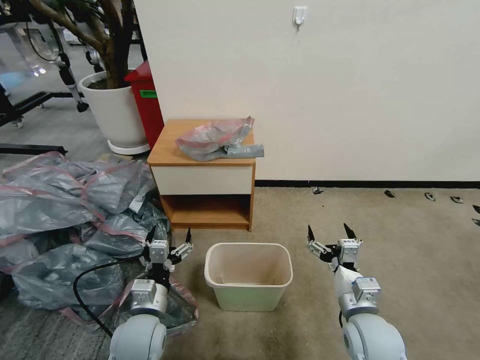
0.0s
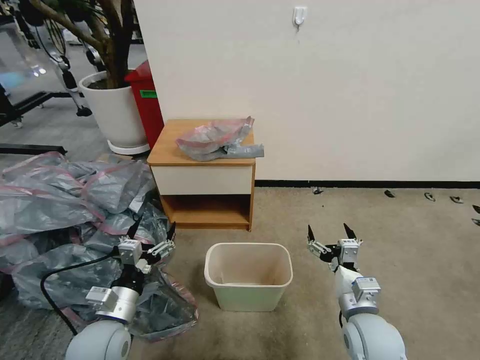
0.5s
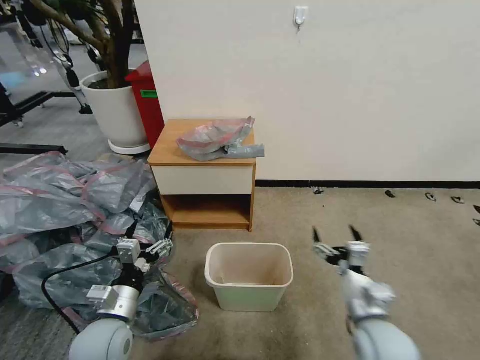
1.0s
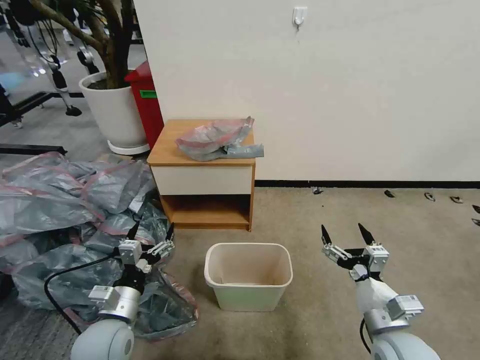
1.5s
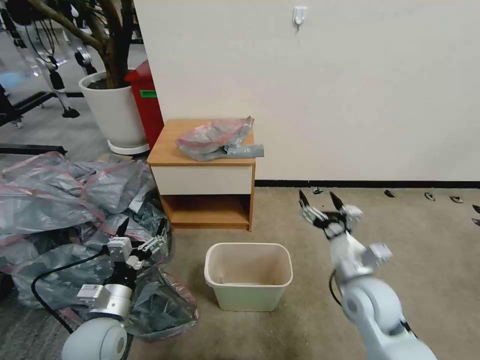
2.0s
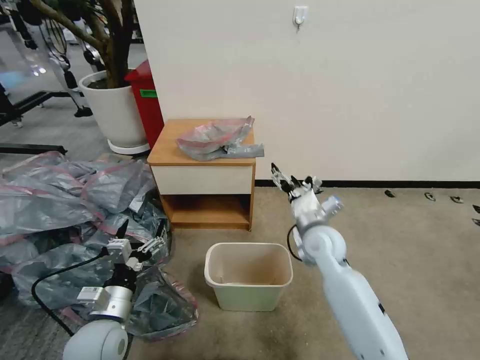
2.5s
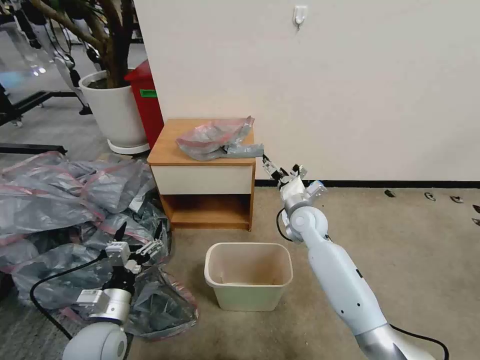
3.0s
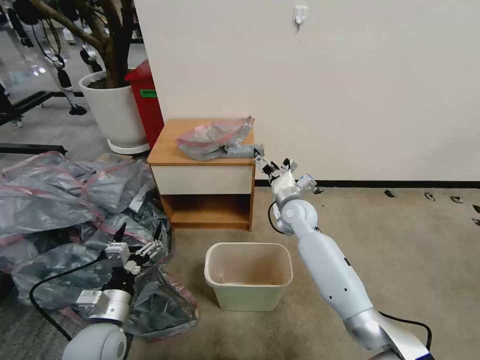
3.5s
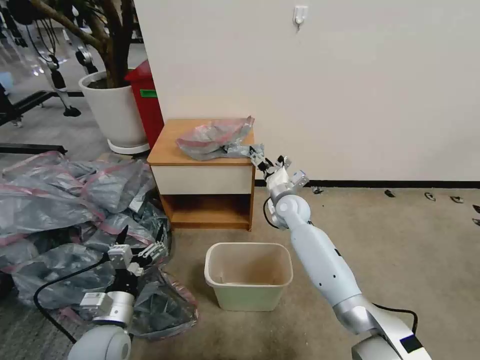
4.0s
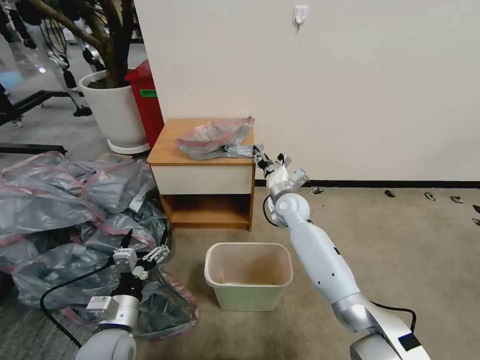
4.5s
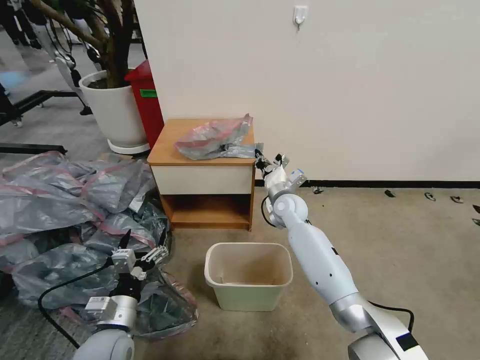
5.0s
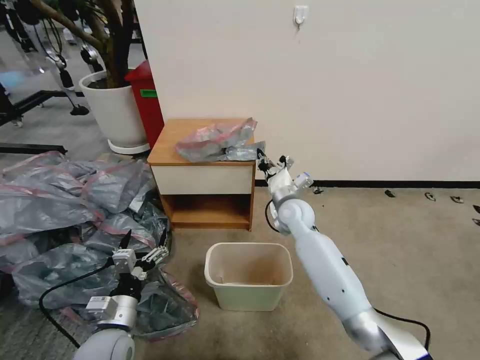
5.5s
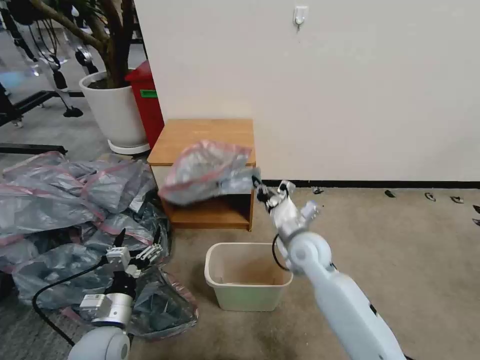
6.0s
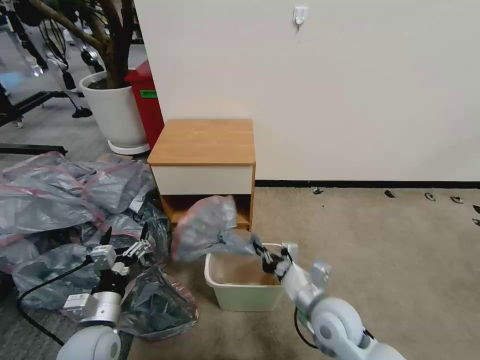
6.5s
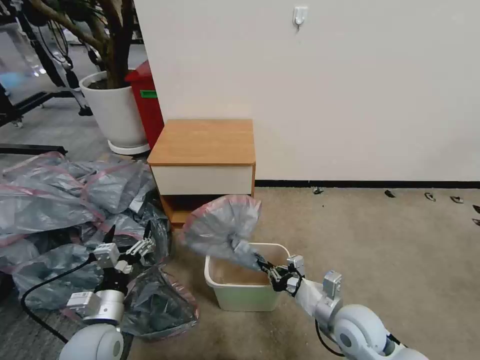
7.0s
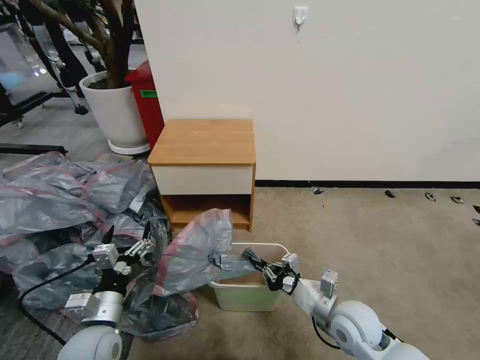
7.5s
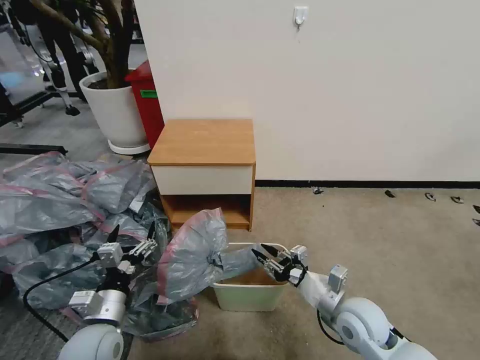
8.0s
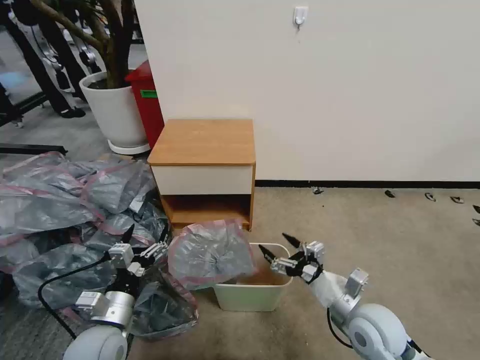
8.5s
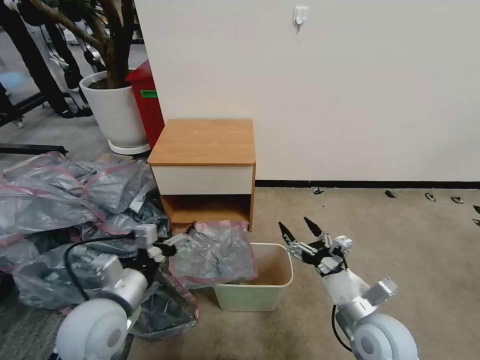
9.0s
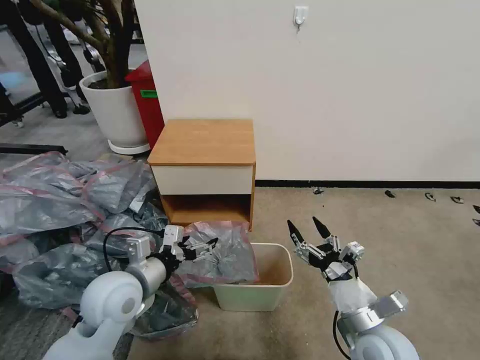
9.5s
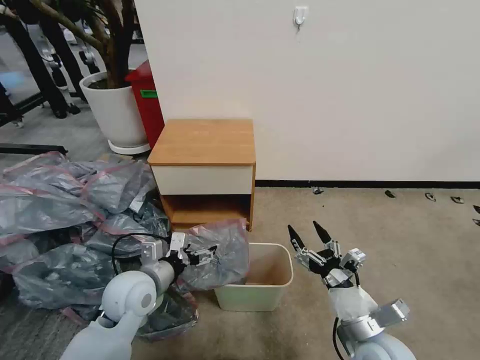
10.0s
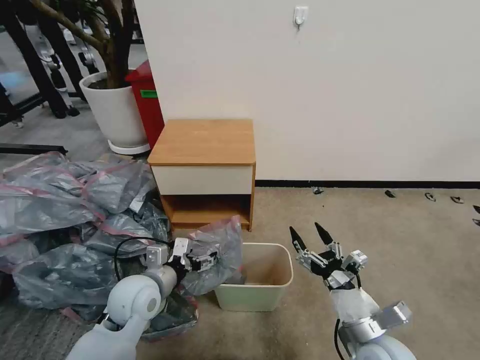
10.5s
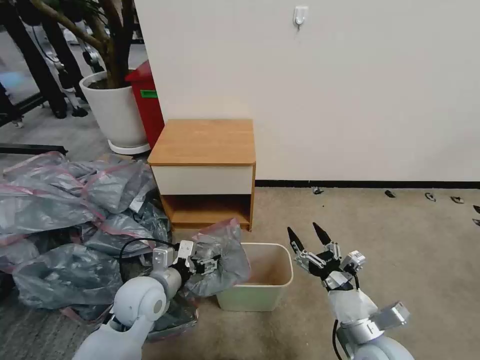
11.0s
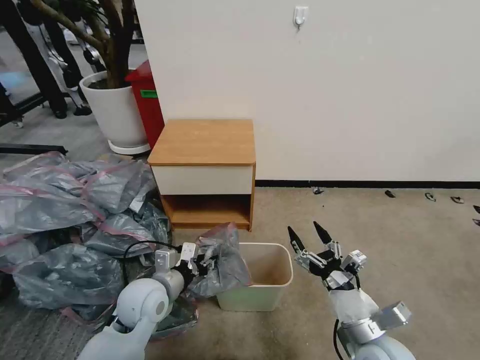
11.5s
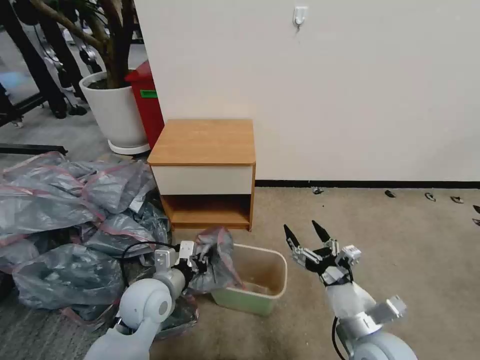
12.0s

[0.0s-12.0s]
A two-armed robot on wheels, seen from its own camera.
Task of the whole recording: Pick up the garbage bag from the table and place it over the trash can.
2.0s to 4.0s: The right gripper moves forward and to the left, about 25 cm.
4.0s to 6.0s: The right gripper goes approximately 15 cm backward, and closes.
6.0s to 8.0s: The right gripper is displaced backward, to the right and downward by about 15 cm, and opens up.
8.0s to 10.0s: The left gripper travels forward and to the right by some 10 cm. Meanwhile the right gripper is displaced backward by roughly 5 cm, and opens.
10.0s to 12.0s: The left gripper closes up.

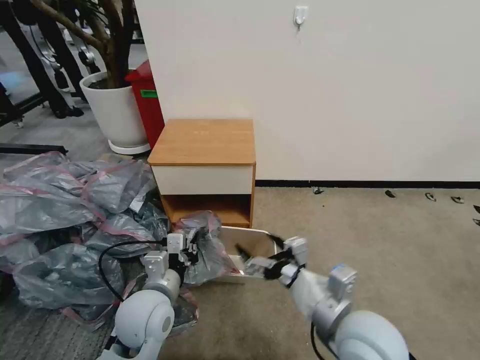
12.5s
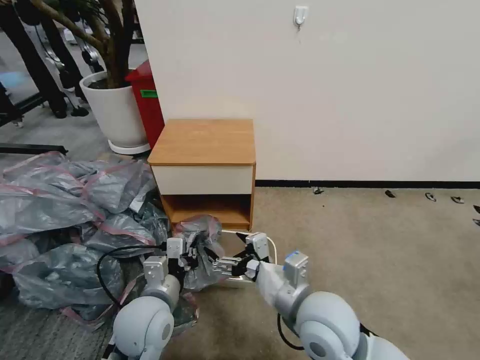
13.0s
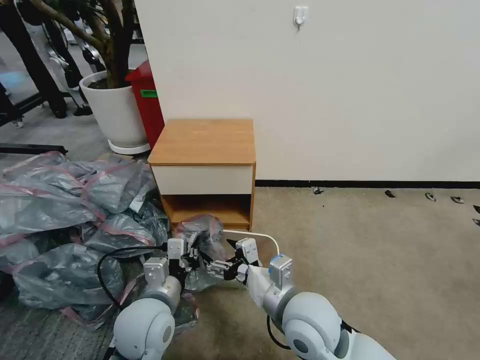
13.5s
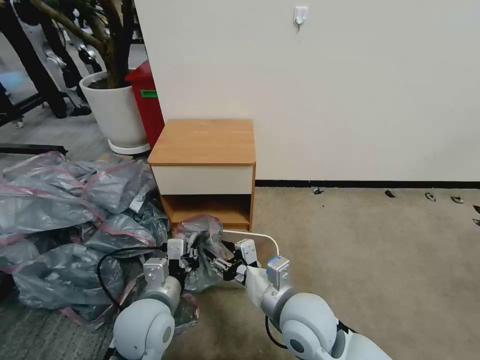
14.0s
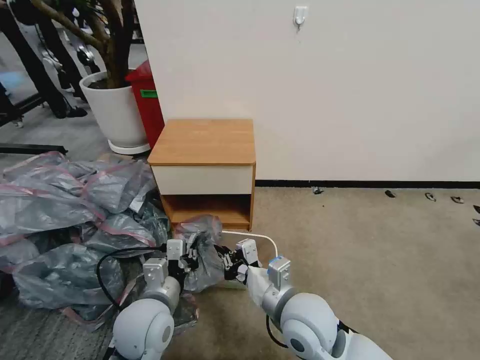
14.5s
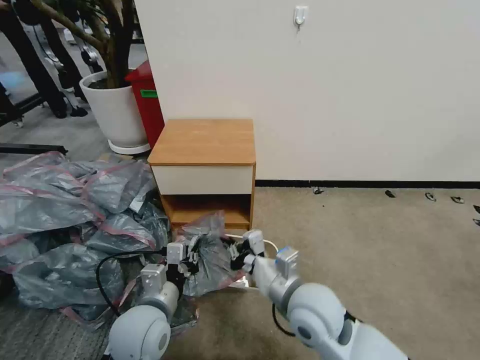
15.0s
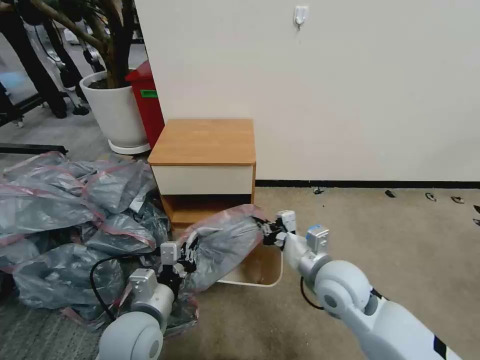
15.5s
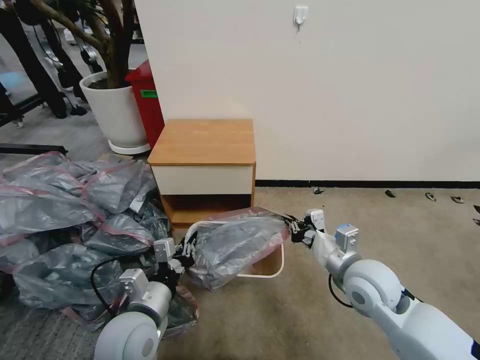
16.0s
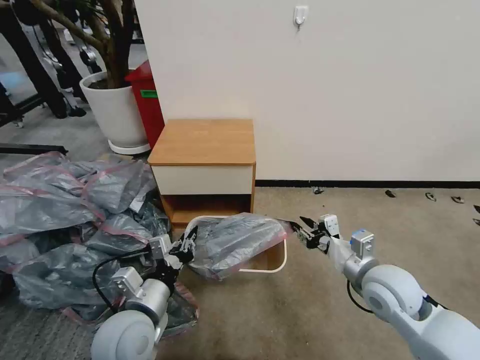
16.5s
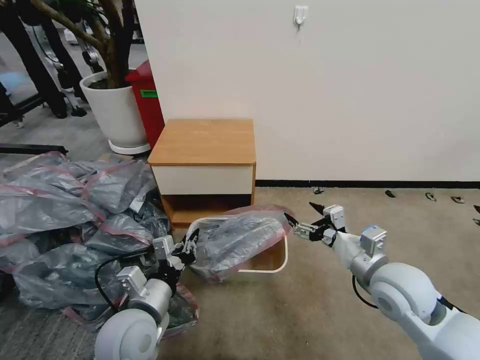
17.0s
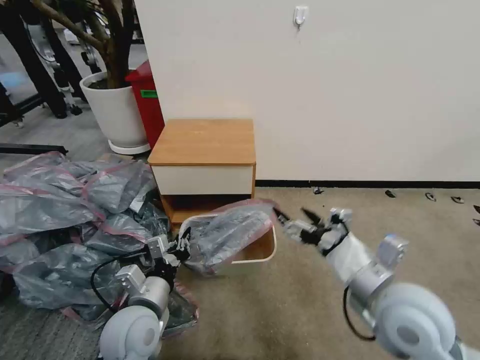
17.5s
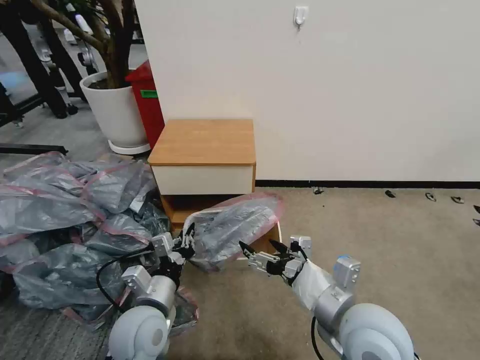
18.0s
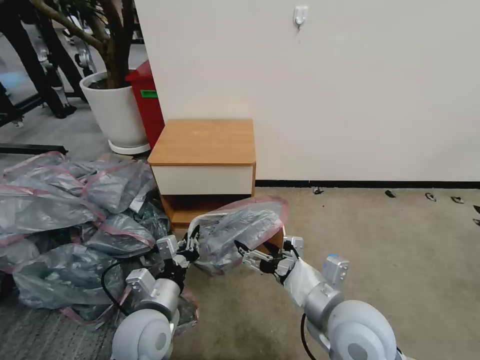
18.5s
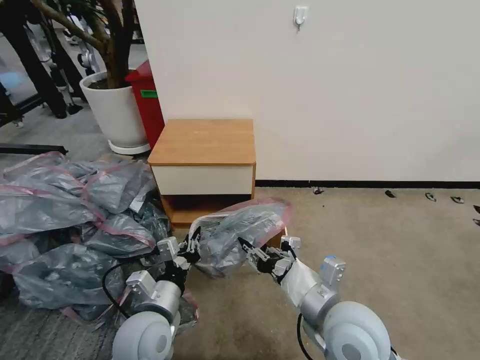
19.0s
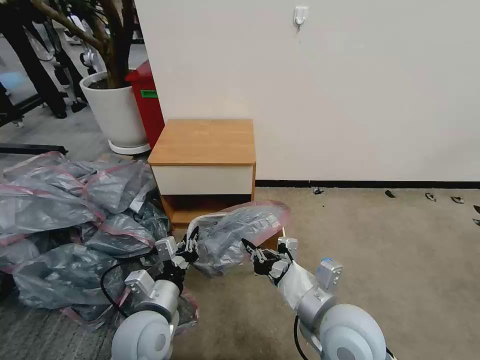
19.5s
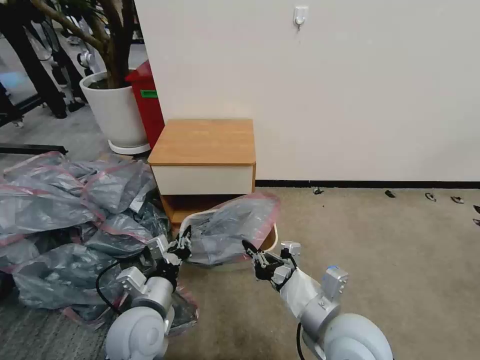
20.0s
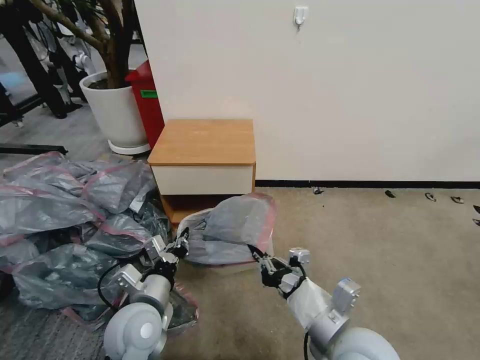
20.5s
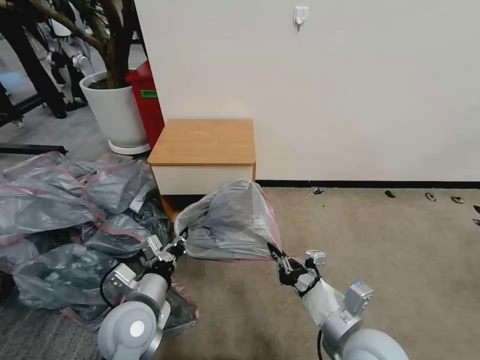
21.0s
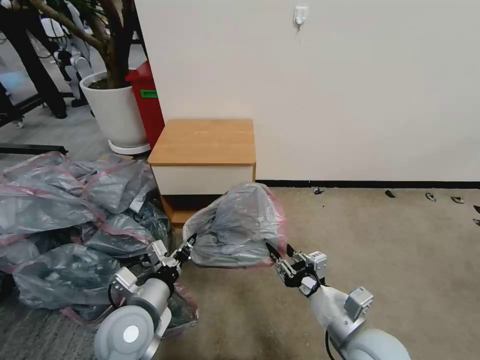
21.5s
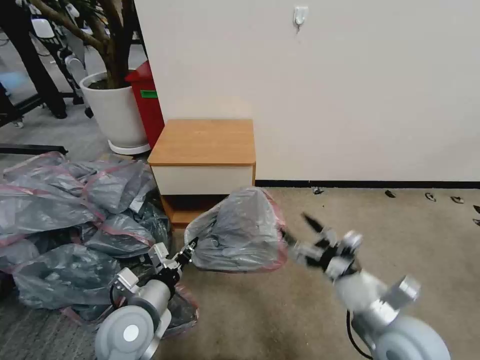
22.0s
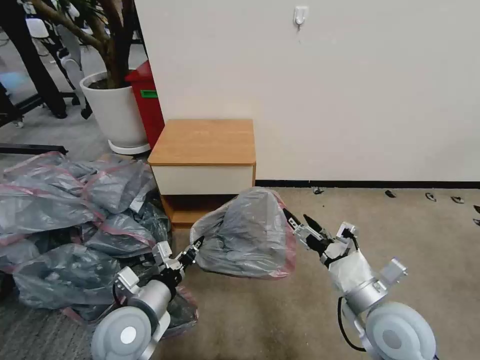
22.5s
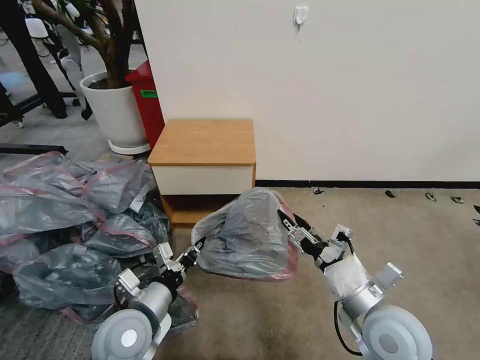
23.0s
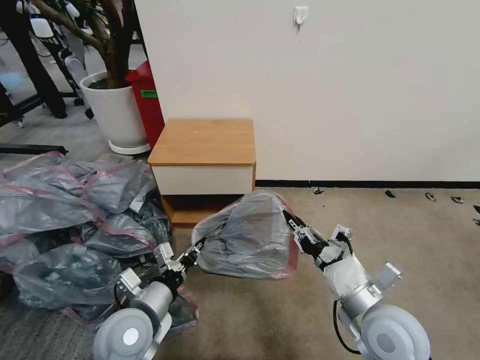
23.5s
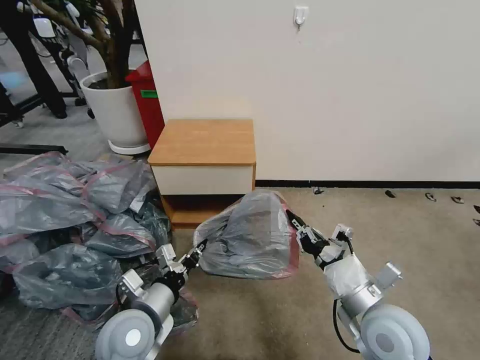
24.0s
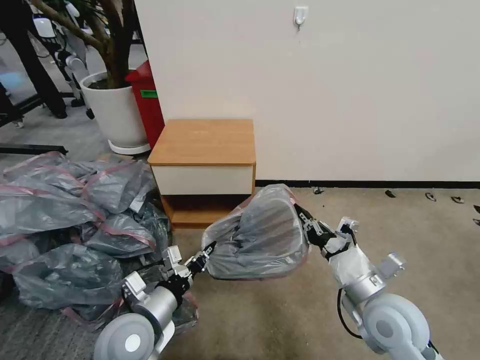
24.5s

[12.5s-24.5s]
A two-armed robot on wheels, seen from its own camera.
Task of the whole recording: Pick up the garbage bag from the table and place it over the trash can.
12.5s to 14.5s: The right gripper travels to the left by about 10 cm, and closes up.
14.5s to 16.5s: The right gripper travels to the right by roughly 20 cm.
16.5s to 18.5s: The right gripper heads to the left and backward, covering some 15 cm, and opens its fingers.
18.5s to 20.5s: The right gripper closes.
20.5s to 22.5s: The right gripper heads to the right, covering some 10 cm, and opens up.
22.5s to 24.5s: The right gripper closes up.

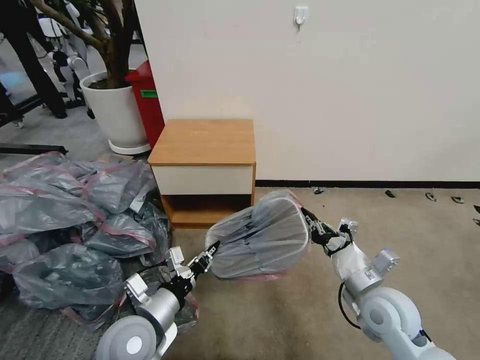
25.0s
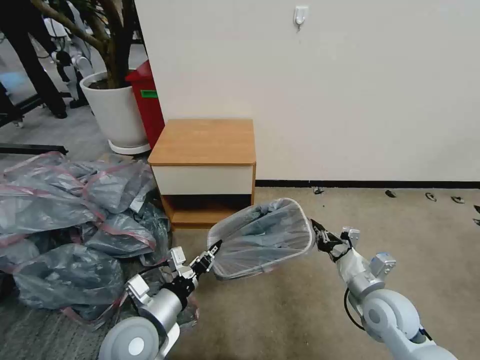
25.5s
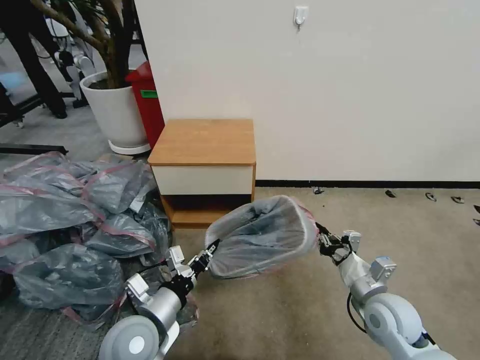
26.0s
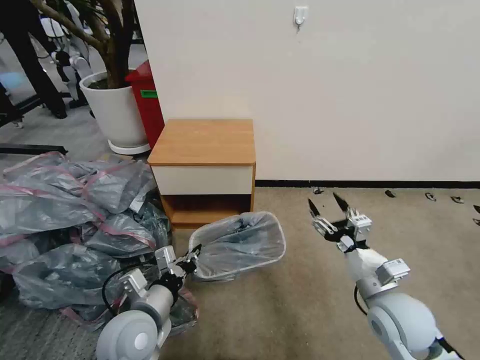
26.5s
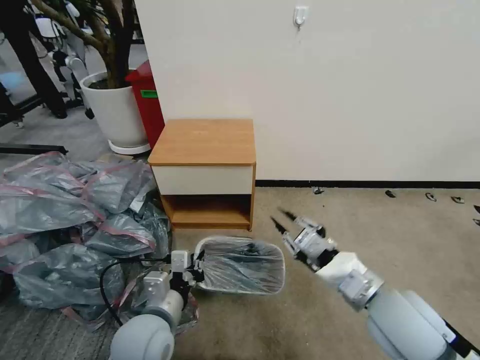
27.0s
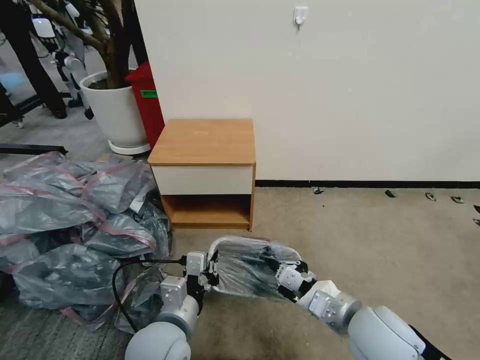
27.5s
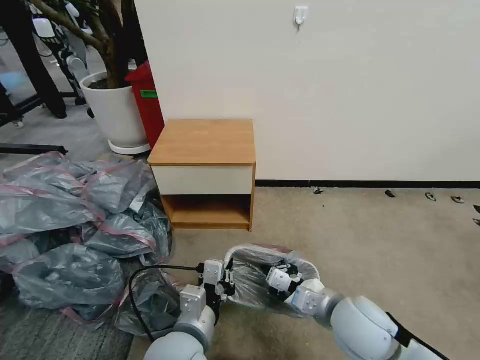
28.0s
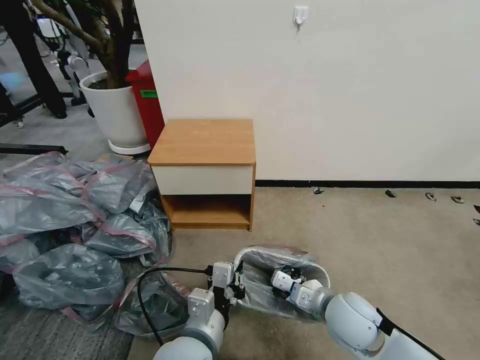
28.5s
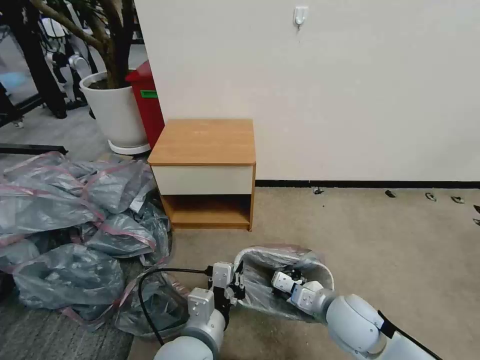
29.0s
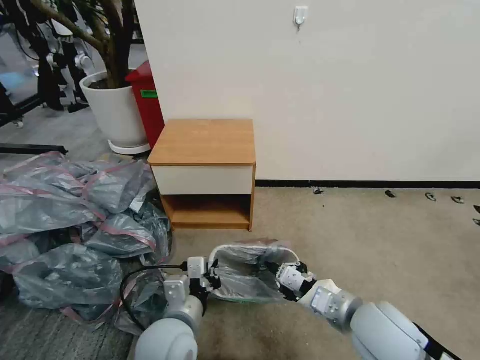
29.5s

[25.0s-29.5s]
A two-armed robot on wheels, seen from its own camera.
Task of the whole recording: Pick up the garbage bag from the table and place it over the trash can.
25.0s to 27.0s: The right gripper heads upward, covering about 10 cm, and opens, then closes once more.
